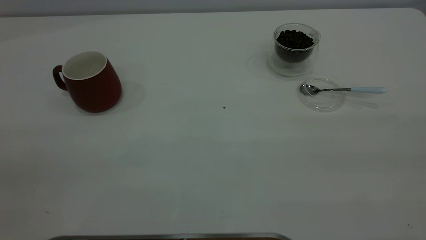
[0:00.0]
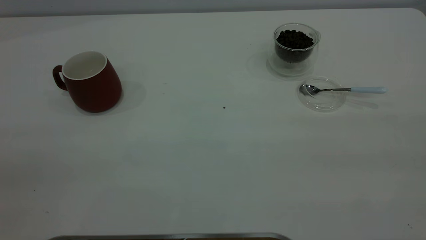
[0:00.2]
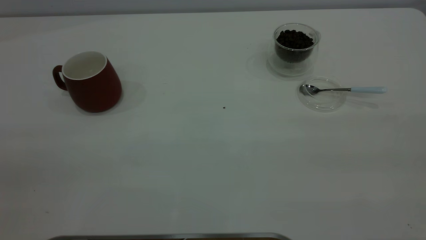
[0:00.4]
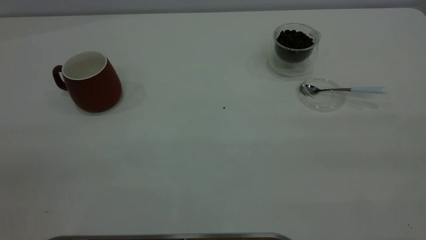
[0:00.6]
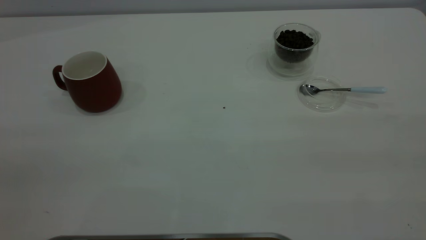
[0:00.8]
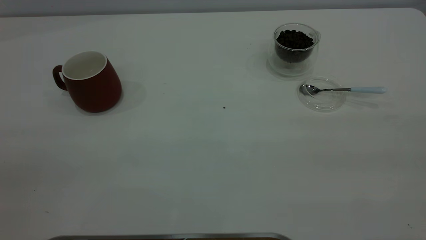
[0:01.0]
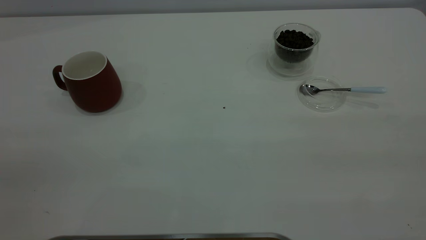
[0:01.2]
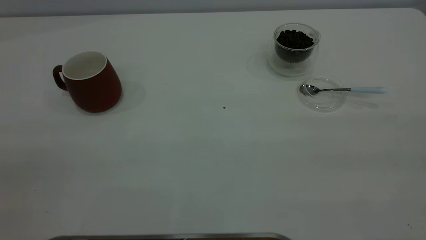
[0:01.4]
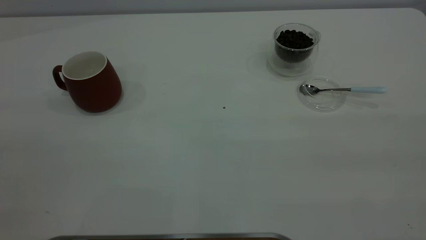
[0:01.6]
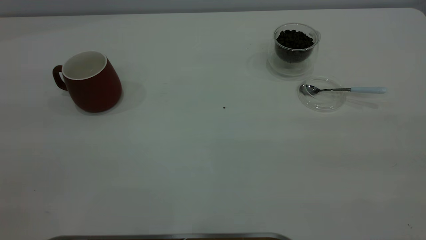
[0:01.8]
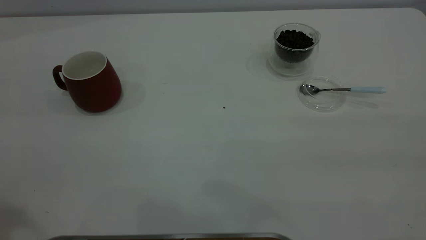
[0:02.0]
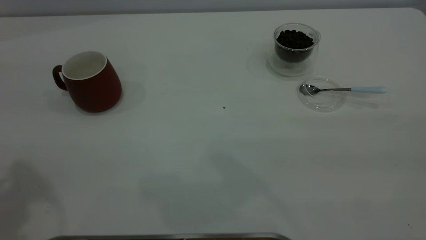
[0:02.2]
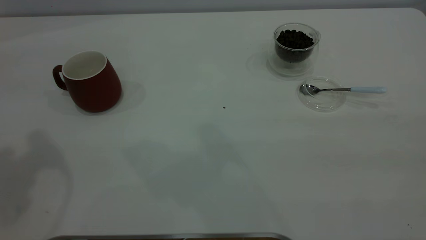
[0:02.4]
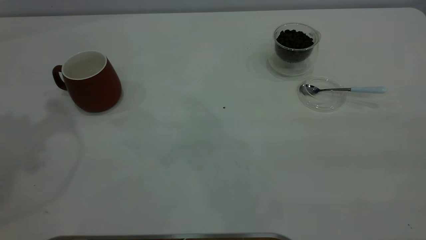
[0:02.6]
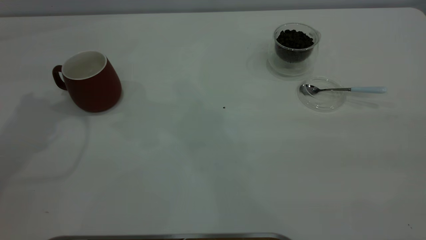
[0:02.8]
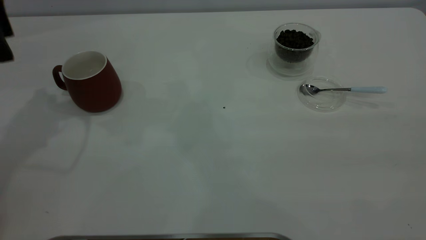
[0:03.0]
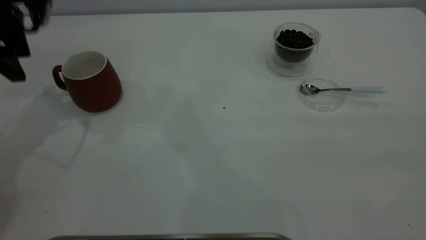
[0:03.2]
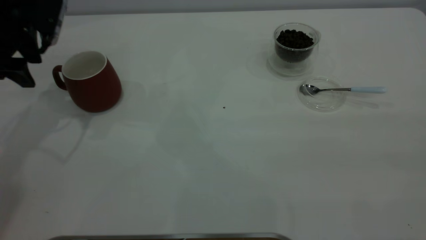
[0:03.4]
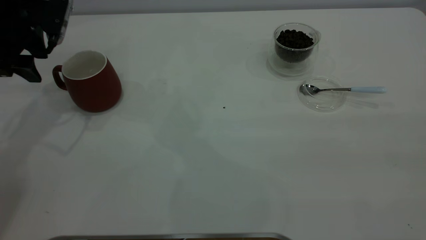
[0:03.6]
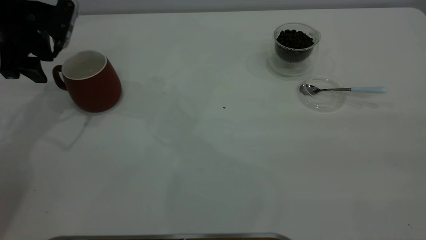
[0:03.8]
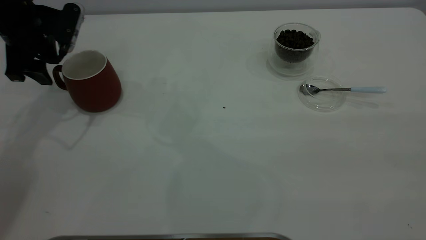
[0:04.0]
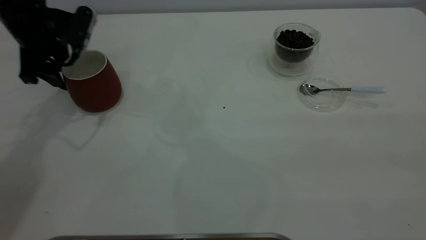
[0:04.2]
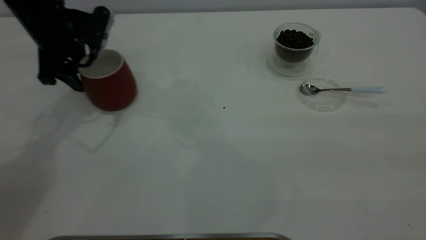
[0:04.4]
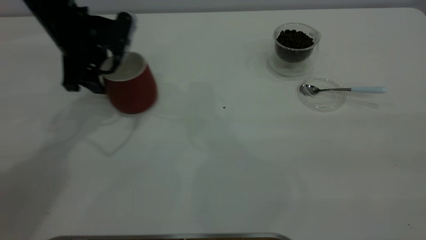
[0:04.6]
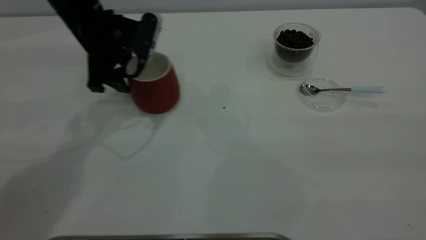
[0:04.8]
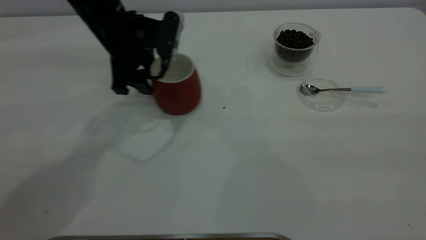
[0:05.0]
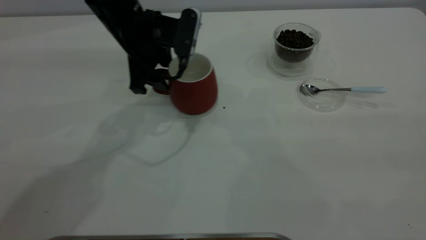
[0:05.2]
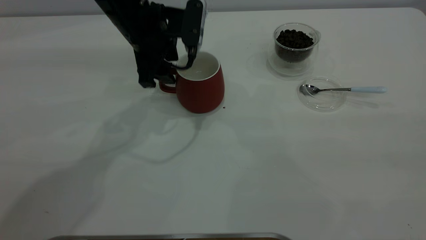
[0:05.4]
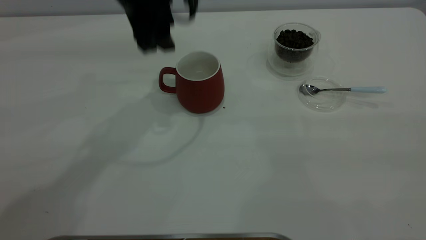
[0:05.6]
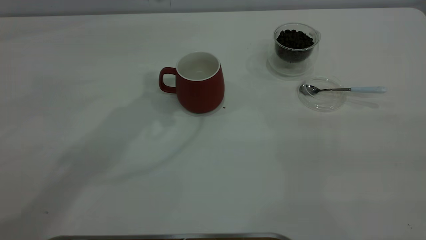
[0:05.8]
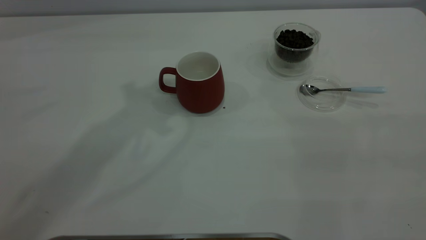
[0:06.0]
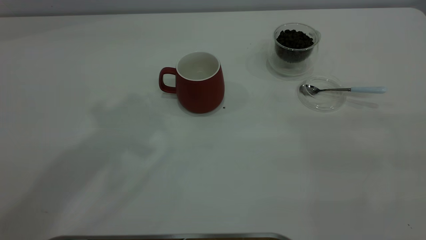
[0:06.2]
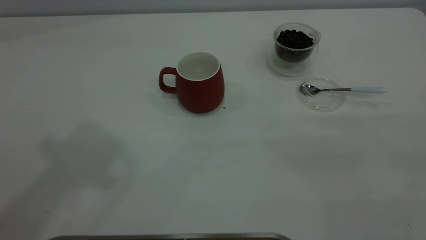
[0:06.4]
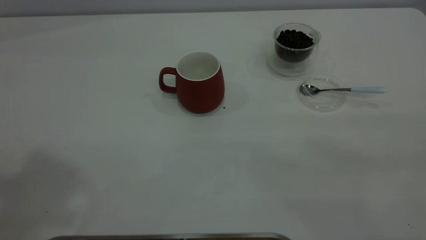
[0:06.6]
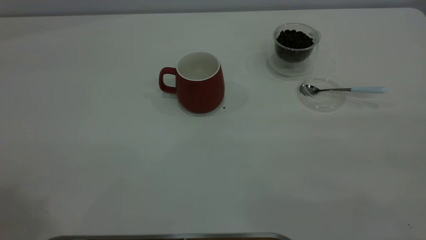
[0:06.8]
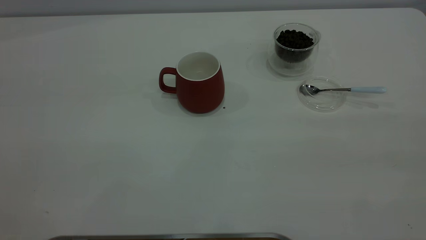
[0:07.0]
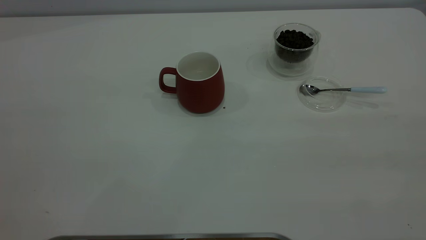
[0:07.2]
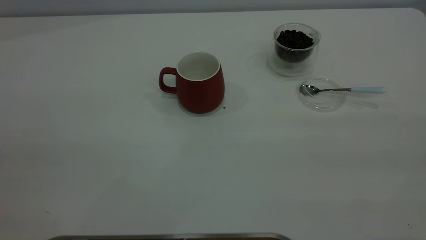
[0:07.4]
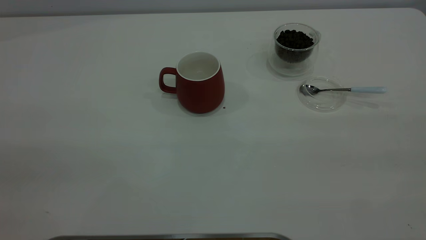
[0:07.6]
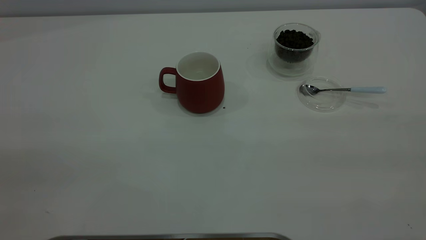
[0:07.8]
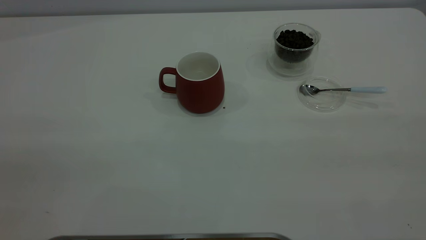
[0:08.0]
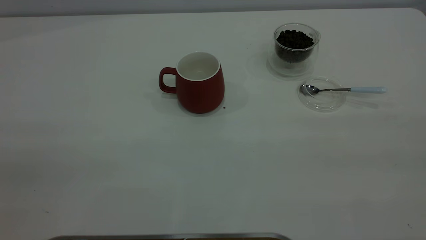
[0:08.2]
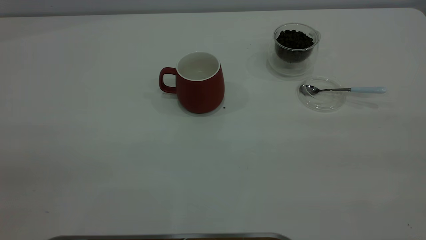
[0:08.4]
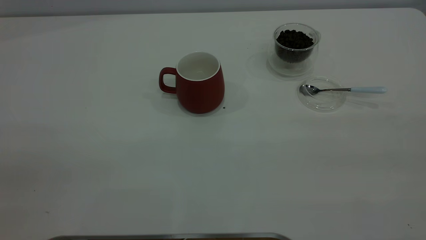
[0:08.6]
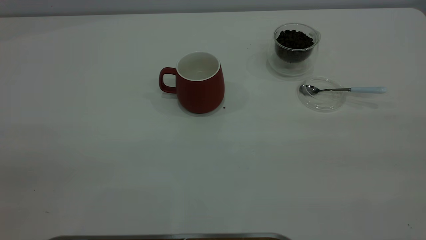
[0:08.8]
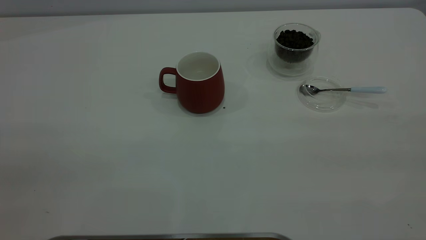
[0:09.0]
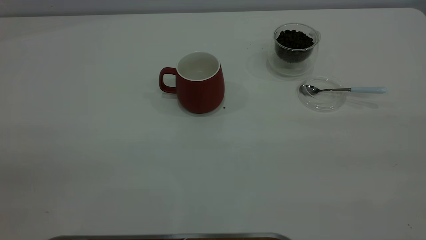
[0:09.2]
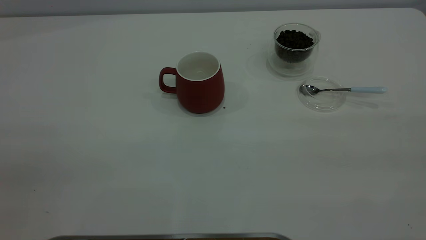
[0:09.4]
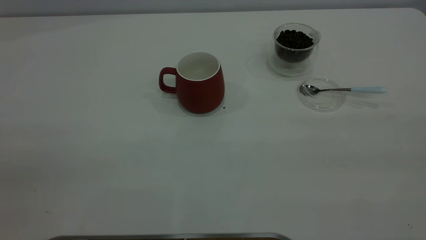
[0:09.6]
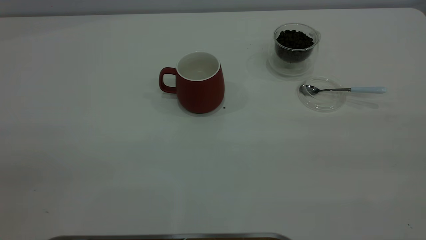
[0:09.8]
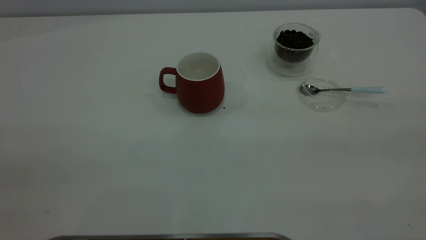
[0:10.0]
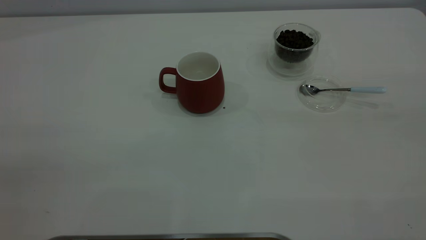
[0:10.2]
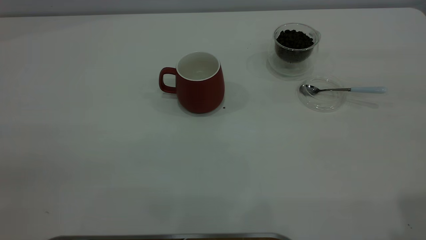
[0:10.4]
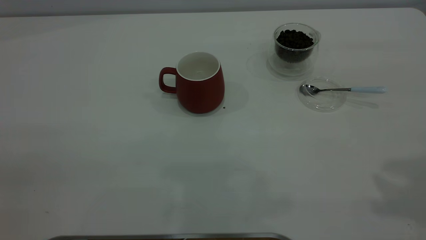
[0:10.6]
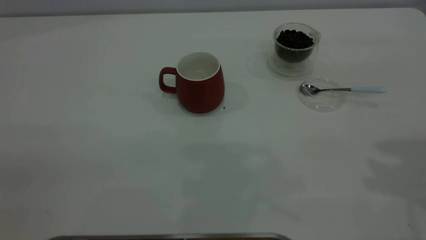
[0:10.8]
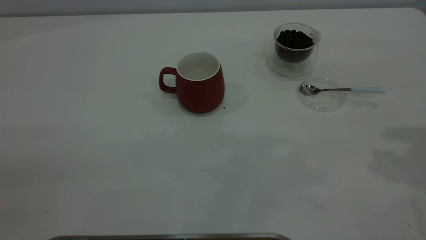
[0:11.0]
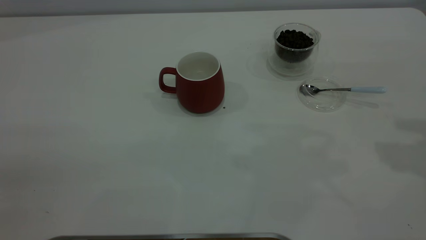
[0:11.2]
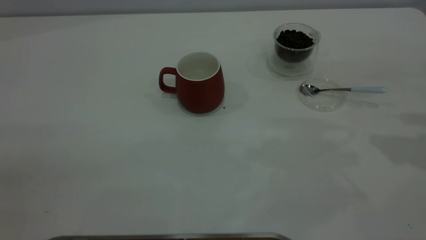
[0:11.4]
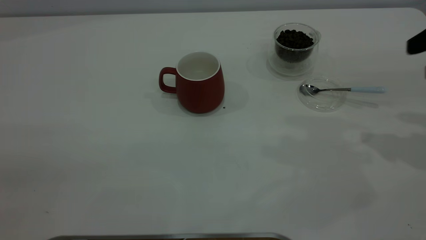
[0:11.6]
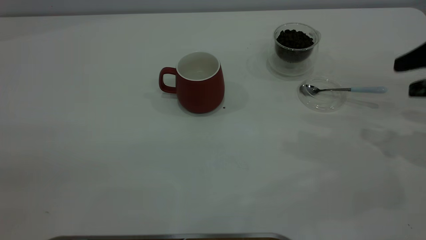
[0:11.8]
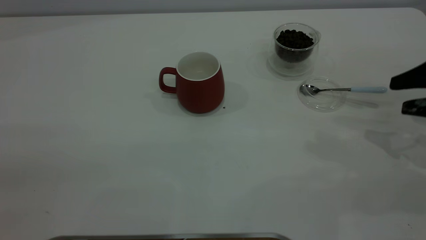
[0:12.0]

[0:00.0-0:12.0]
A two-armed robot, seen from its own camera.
Task of the whole recording: the left gripper place the red cup in the center of the table, the right gripper take the blue spoon from the cup lid and scoop out the coffee beans from the coffee cup and put them into the red cup, the right gripper put the spoon back into the cup lid.
Step, 0:00.0 to 0:05.4: Move the cup to the center of view.
0:03.0 to 0:04.4: The left gripper goes approximately 10 cm downward and to the right.
0:04.4 to 0:06.0: The left gripper heads upward and to the right, covering roughly 30 cm.
0:10.4 to 0:12.0: The right gripper heads downward and forward, covering some 30 cm.

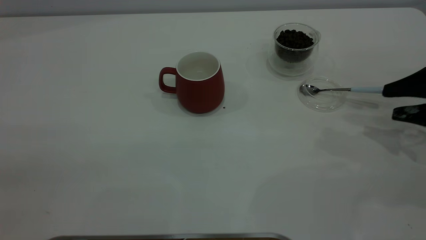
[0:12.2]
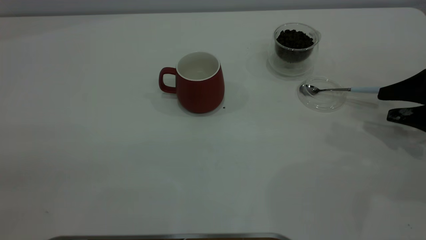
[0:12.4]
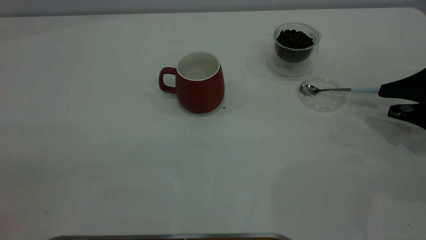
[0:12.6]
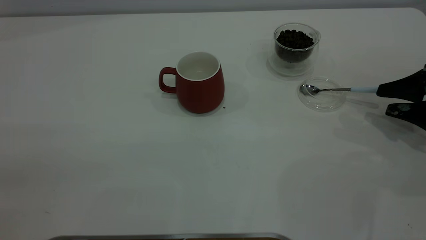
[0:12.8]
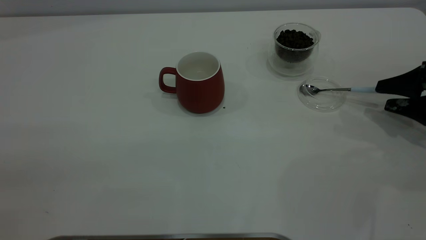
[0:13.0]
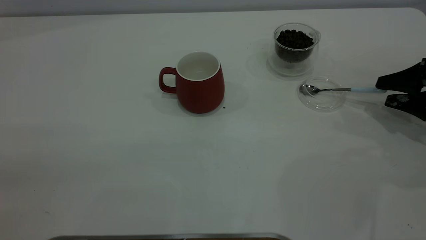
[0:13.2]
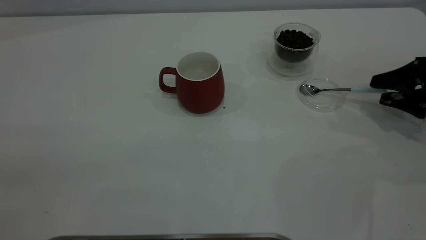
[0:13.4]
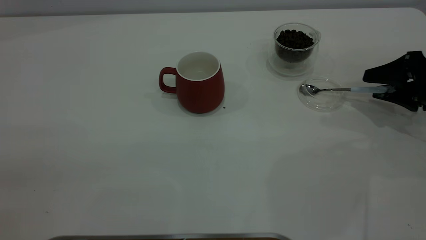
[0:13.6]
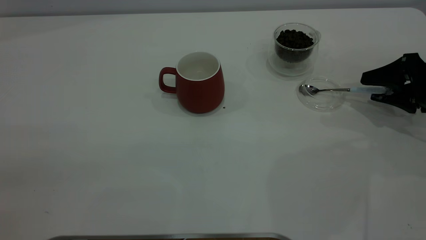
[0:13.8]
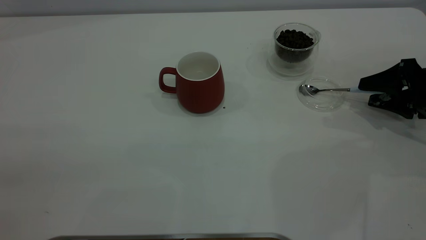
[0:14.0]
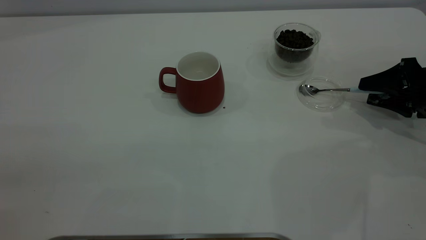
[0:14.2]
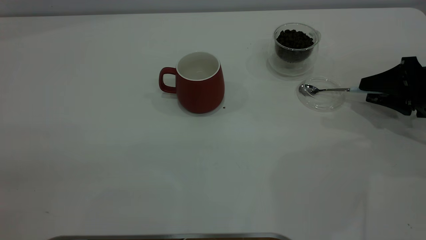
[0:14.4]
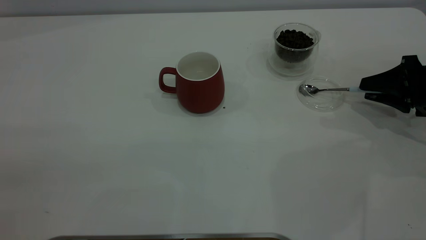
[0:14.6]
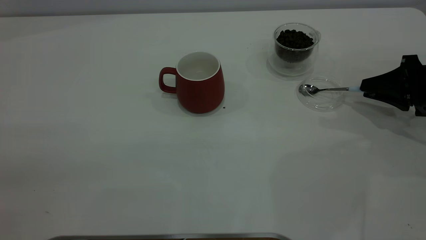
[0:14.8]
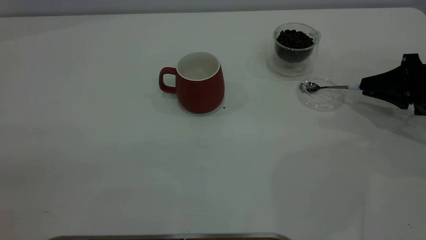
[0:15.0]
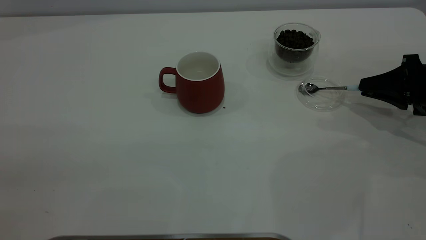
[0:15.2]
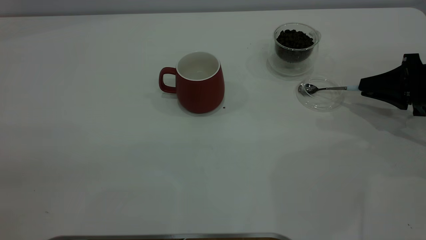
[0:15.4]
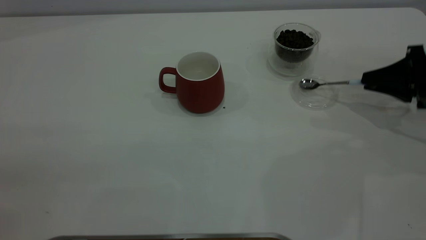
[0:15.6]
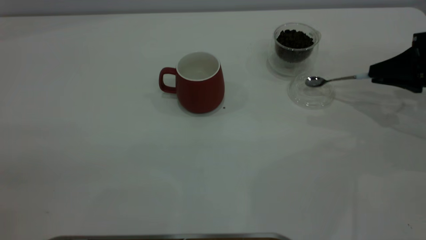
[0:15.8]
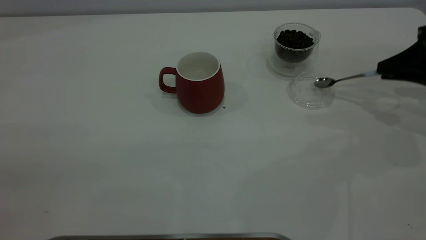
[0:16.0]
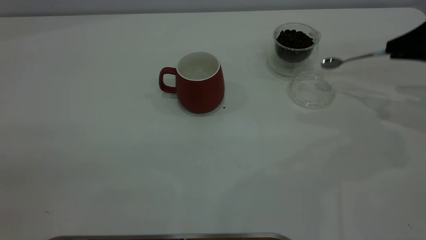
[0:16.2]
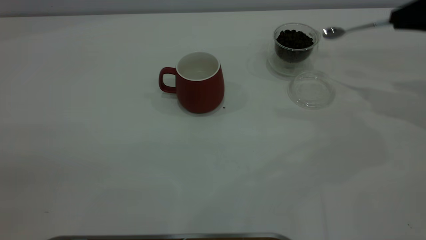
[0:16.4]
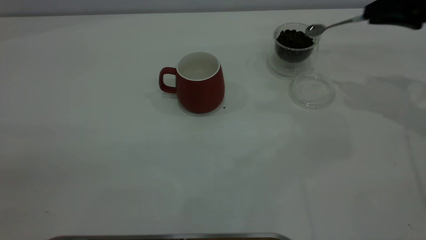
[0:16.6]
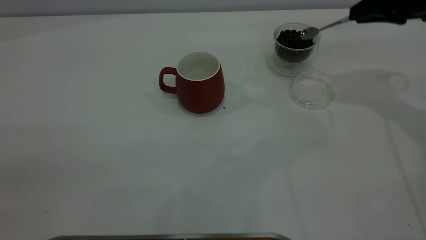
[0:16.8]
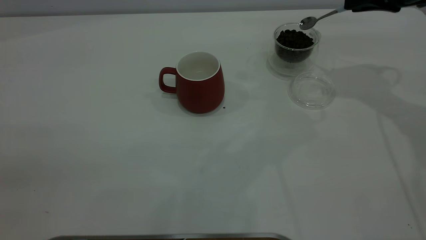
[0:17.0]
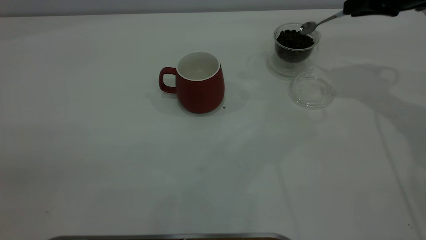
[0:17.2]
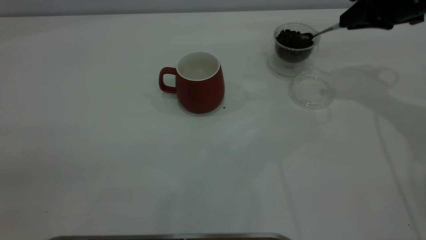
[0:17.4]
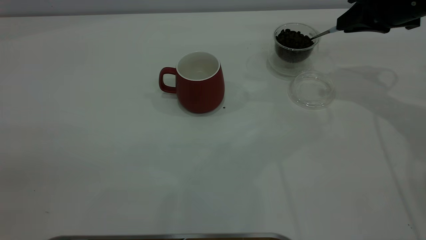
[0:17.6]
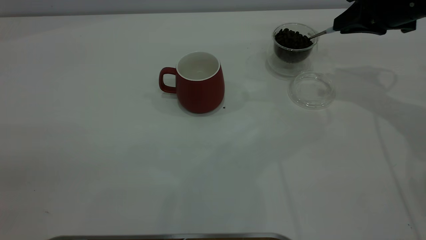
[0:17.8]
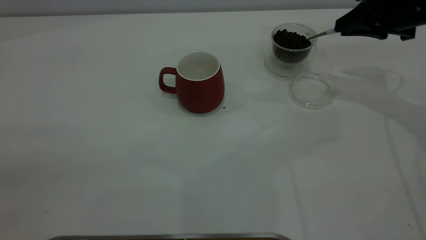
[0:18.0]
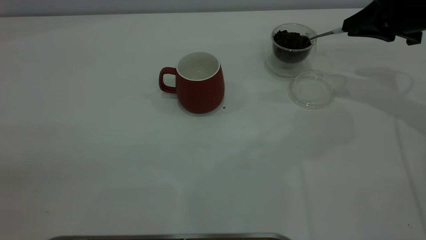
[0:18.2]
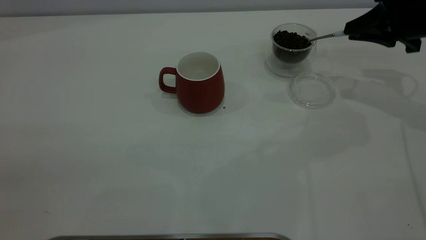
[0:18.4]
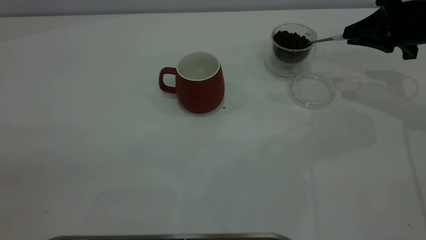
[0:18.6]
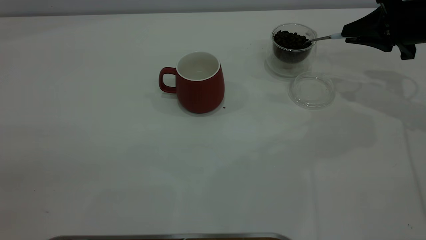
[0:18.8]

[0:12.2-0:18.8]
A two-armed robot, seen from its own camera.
Task of the whole recording: the left gripper place the red cup in the center of the table, the right gripper take the blue spoon from the cup lid and scoop out the coffee beans from the coffee cup and put them into the red cup, the right gripper put the spoon back into the cup lid.
Step, 0:12.2 to 0:16.0: Pick up the spoon.
0:12.2 to 0:13.8: The right gripper shifts roughly 5 cm forward.
0:13.8 to 0:15.4: The right gripper closes its fingers.
0:15.4 to 0:17.2: The right gripper travels upward, to the left and forward by roughly 15 cm.
0:17.2 to 0:18.8: The right gripper shifts some 5 cm downward.
